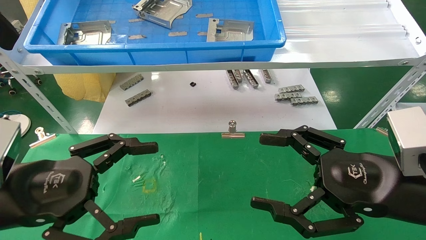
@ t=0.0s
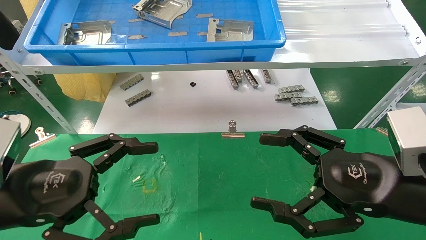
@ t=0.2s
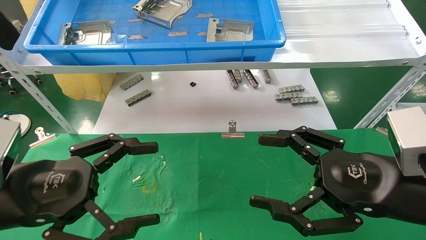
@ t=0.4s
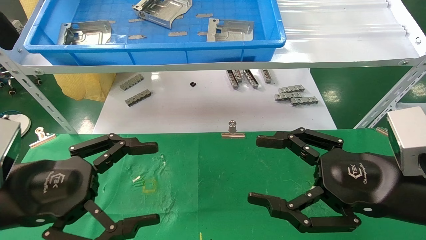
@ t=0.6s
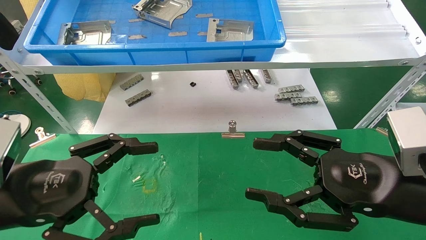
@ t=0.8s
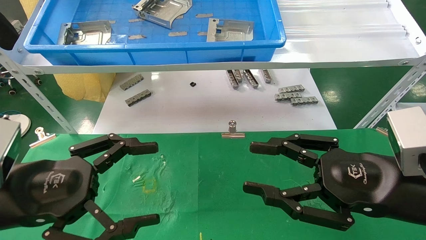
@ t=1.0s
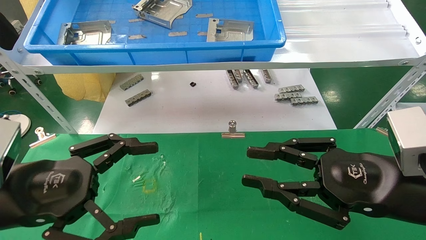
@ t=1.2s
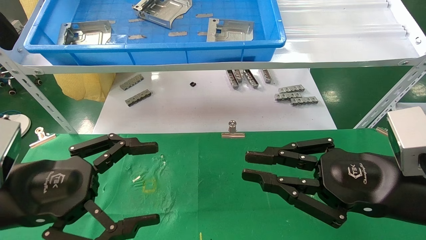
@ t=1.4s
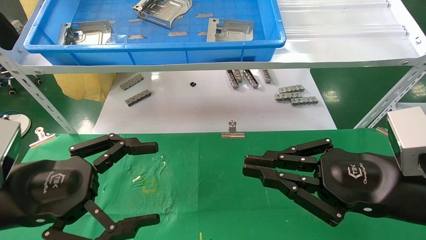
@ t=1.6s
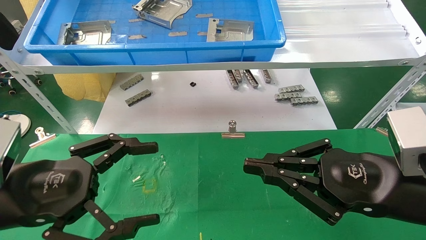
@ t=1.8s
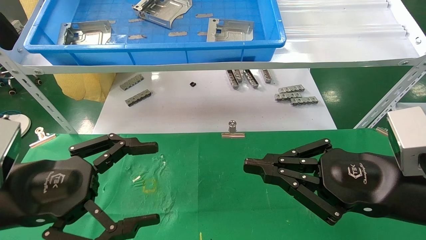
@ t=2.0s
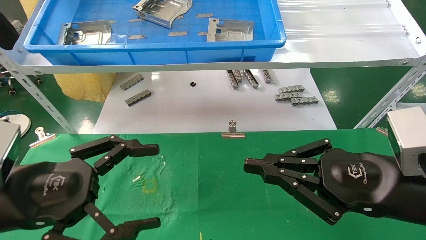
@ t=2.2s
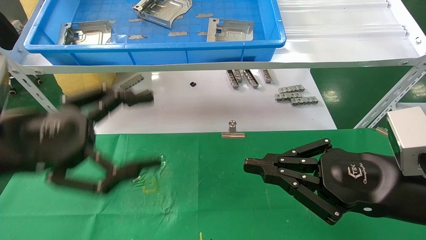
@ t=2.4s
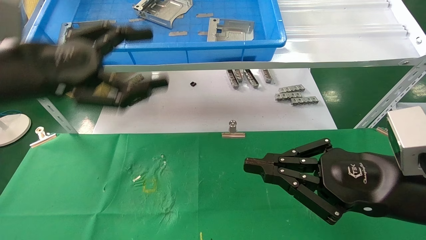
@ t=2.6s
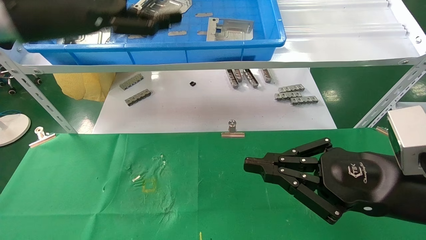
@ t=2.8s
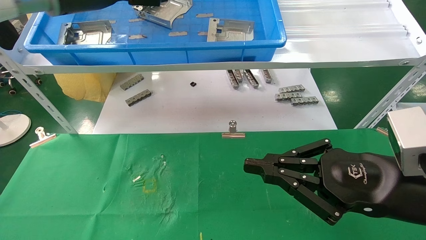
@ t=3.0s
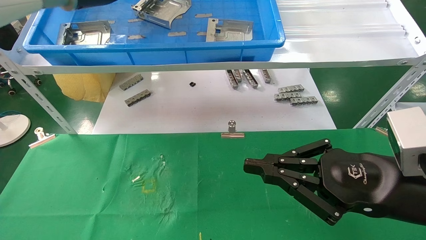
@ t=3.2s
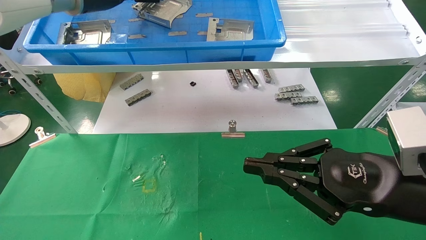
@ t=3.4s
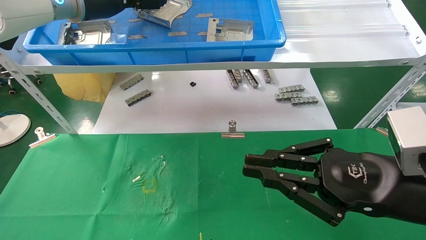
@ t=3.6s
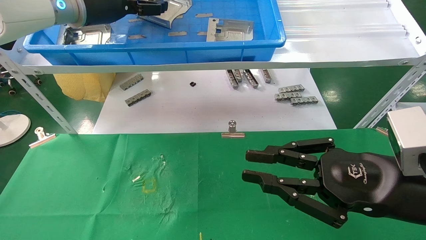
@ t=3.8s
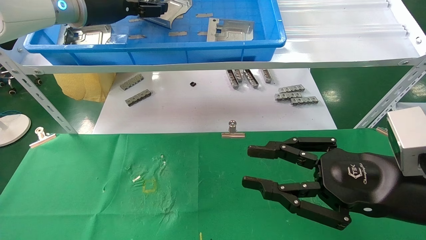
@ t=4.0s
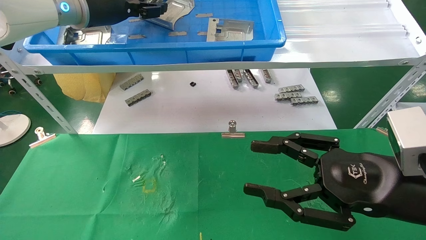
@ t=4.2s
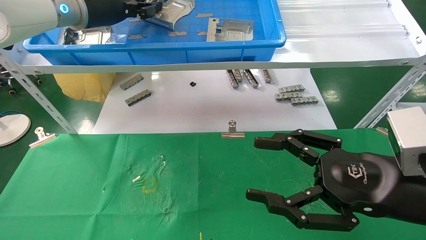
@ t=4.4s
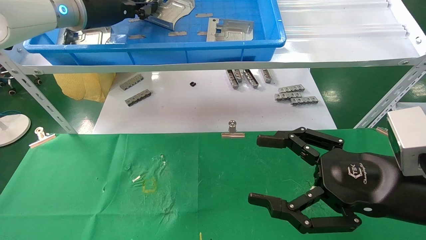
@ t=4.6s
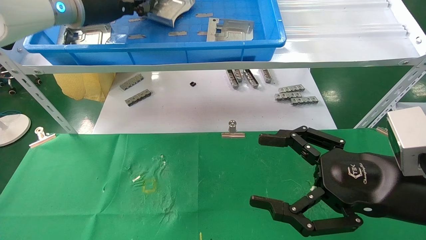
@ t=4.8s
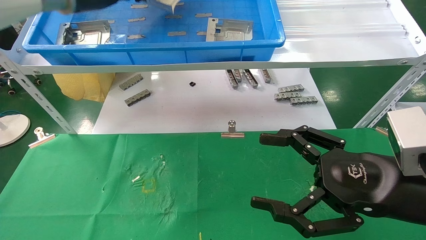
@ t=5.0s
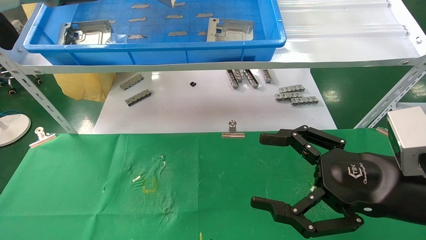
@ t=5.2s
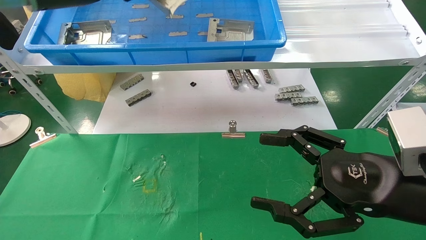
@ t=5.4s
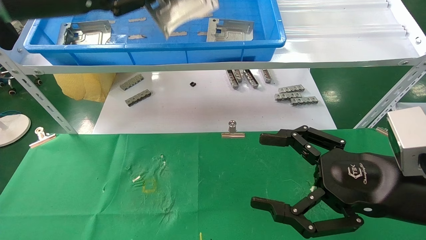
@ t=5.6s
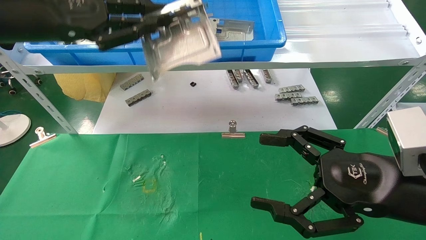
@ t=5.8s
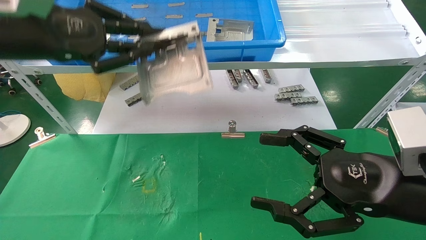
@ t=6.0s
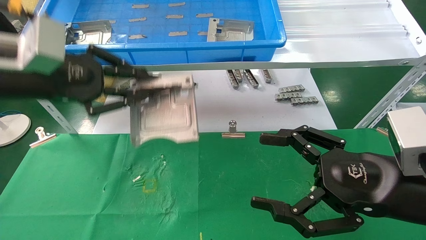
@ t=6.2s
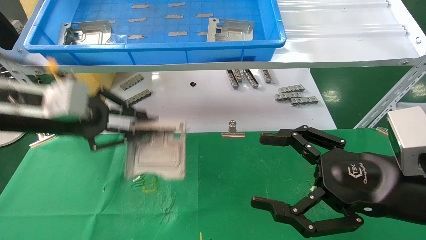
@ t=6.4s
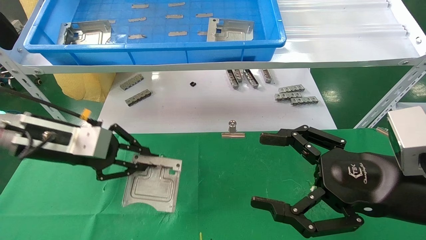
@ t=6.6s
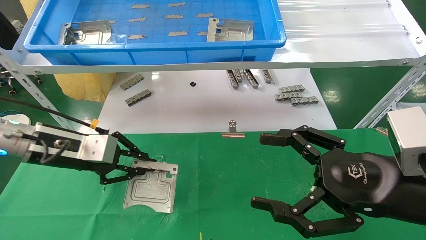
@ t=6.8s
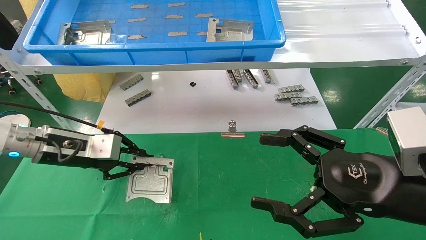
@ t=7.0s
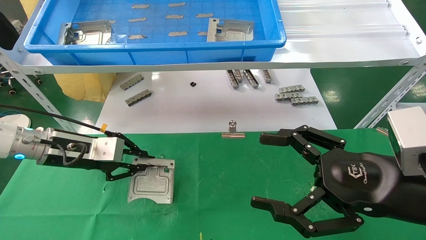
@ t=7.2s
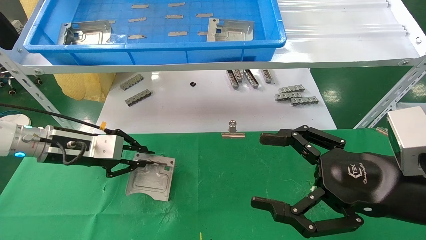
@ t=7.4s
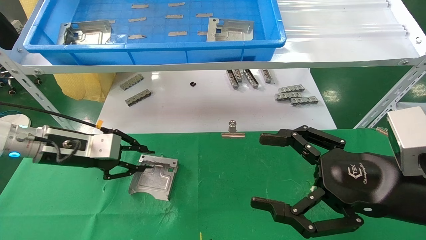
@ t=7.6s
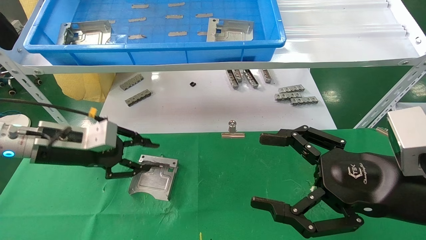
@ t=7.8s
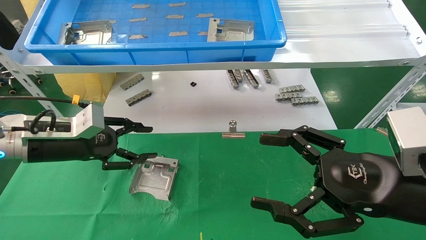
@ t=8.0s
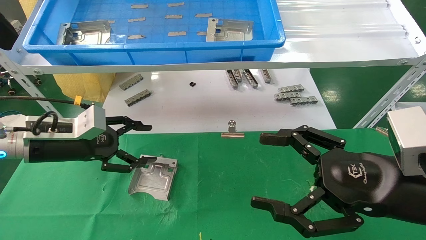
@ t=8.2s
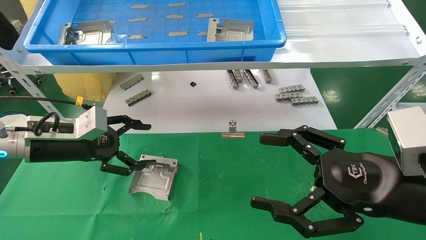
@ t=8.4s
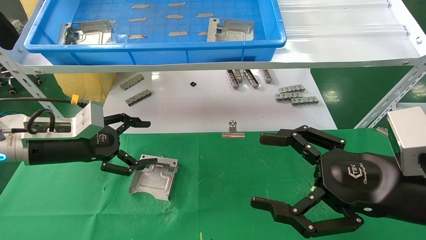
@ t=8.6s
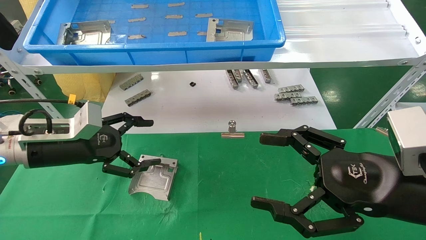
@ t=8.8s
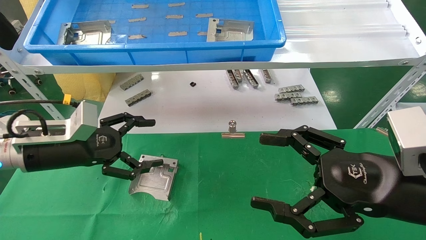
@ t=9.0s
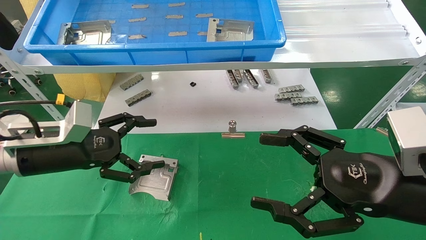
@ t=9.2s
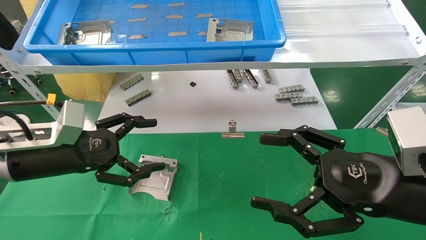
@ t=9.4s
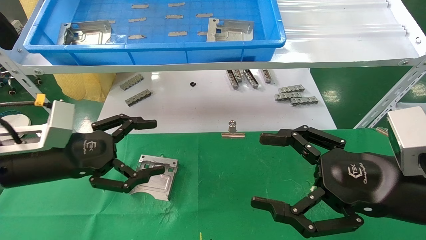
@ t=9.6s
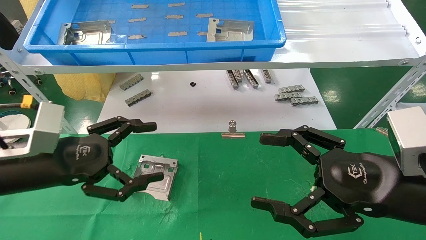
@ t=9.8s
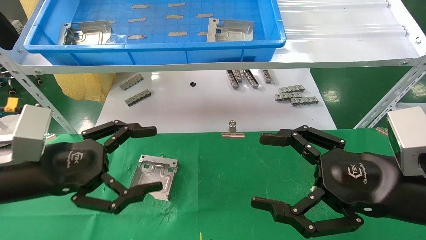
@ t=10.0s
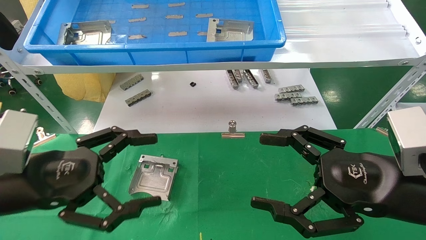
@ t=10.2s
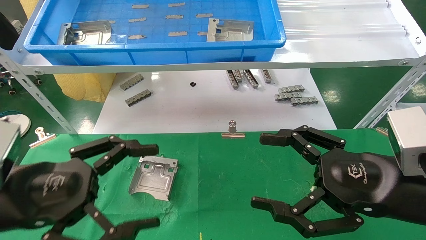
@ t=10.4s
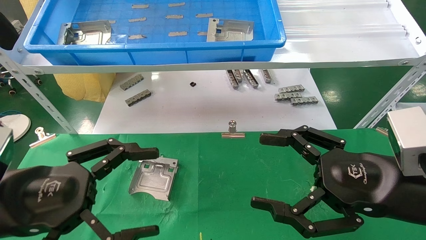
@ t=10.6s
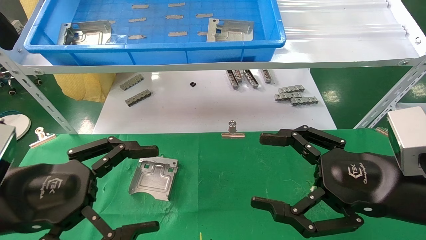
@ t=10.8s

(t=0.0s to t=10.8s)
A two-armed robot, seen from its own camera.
Task of the whole recording: use the mechanical arm to pick up the parts and place them on the table.
Step, t=2.4s - t=4.6s: Pick up the hard drive bracket from the feeding area.
Step, t=4.8s - t=7.8s: Place the hard drive bracket into the box.
t=0.0s - t=1.6s: The right gripper closes up.
t=1.6s - t=3.0s: The left gripper goes about 30 cm upward and forward.
t=3.0s - t=4.6s: The right gripper opens; the left gripper heads forward, covering about 5 cm, and closes up.
t=4.6s - t=6.2s: The left gripper shifts about 15 cm backward and downward.
t=6.2s - t=7.8s: The left gripper moves downward and forward, some 15 cm.
t=7.8s - t=9.2s: The left gripper opens its fingers.
t=9.2s - t=10.8s: The left gripper is displaced backward by approximately 15 cm.
